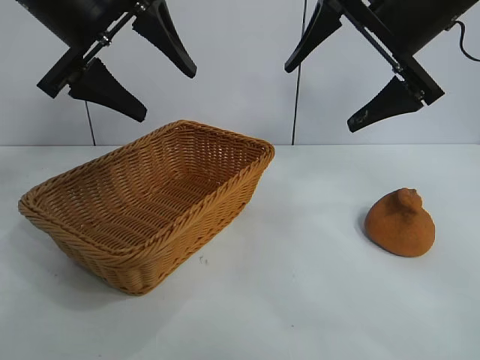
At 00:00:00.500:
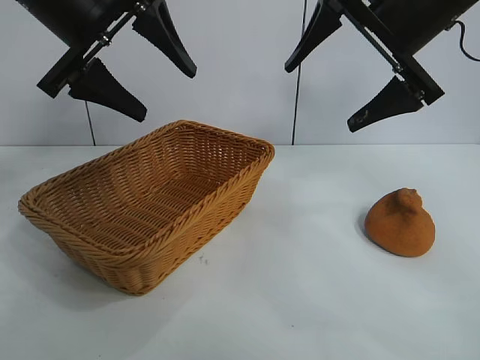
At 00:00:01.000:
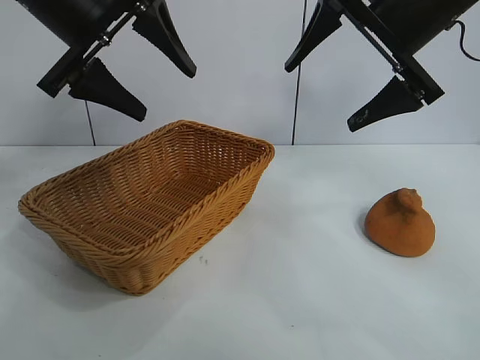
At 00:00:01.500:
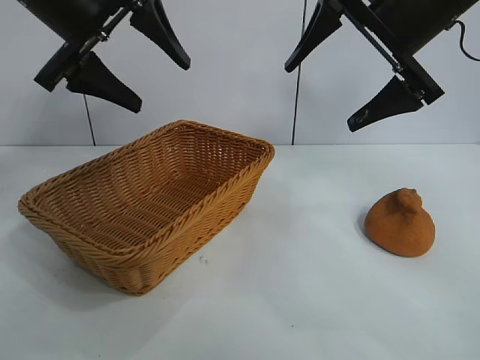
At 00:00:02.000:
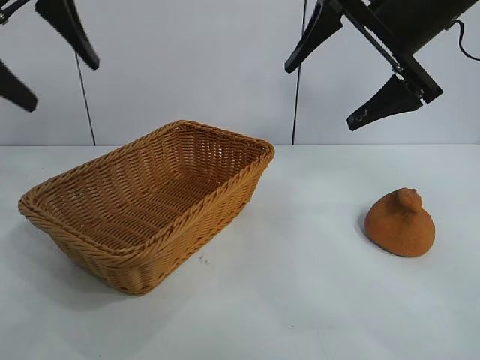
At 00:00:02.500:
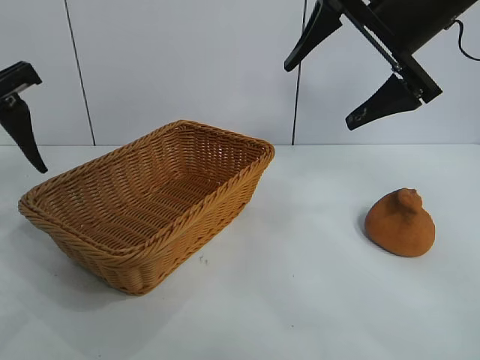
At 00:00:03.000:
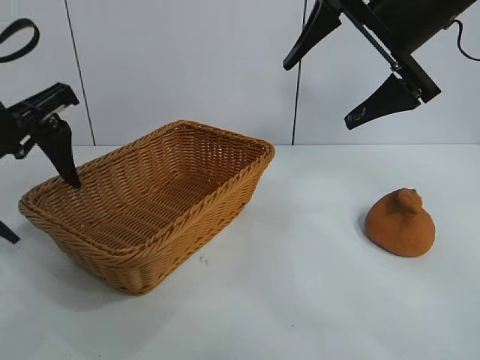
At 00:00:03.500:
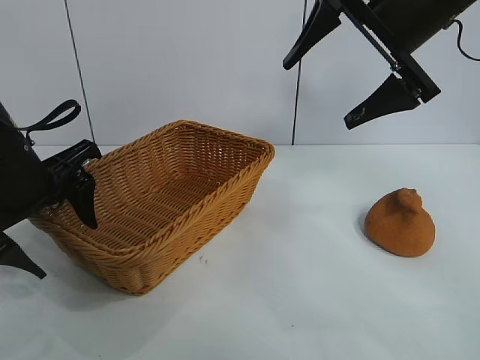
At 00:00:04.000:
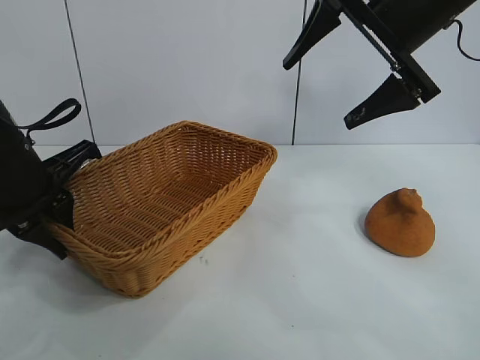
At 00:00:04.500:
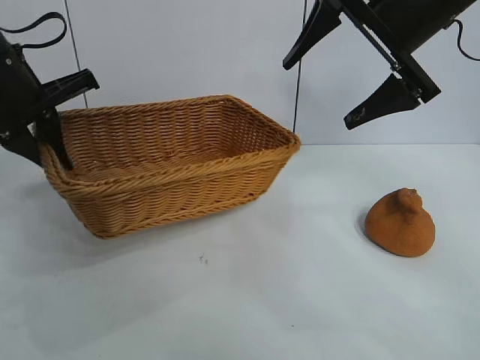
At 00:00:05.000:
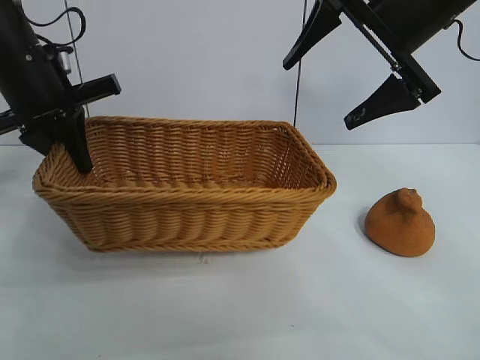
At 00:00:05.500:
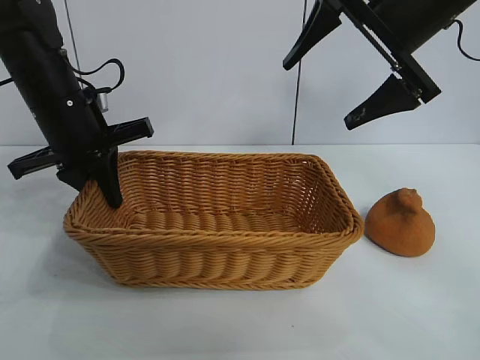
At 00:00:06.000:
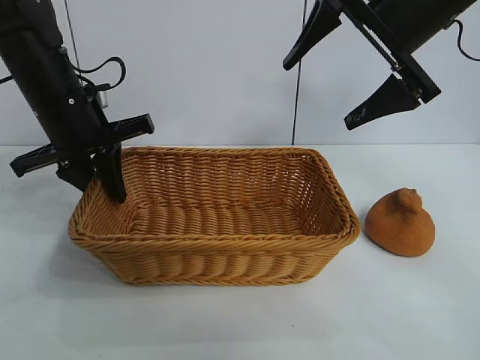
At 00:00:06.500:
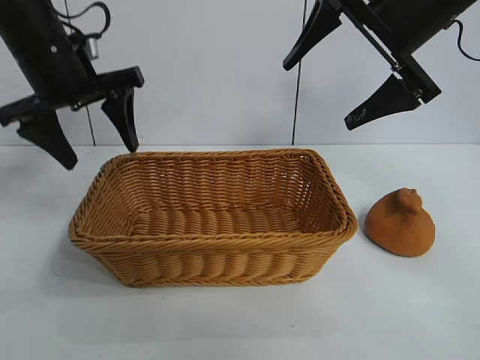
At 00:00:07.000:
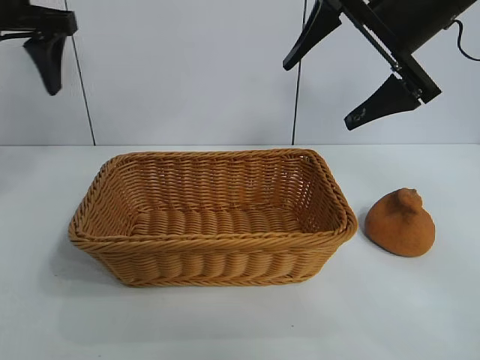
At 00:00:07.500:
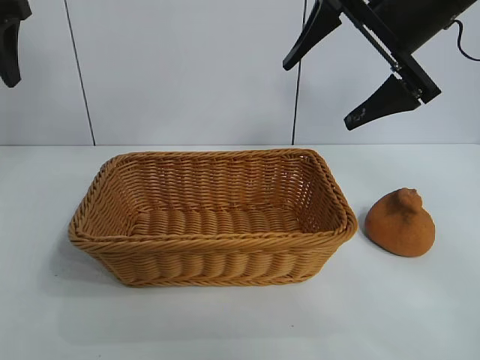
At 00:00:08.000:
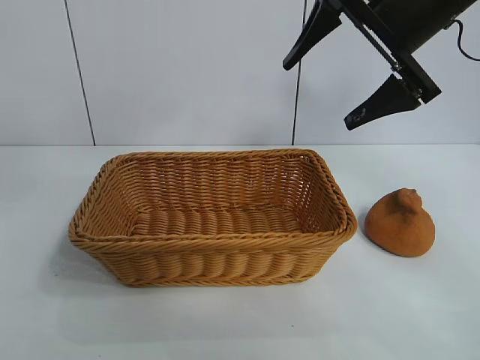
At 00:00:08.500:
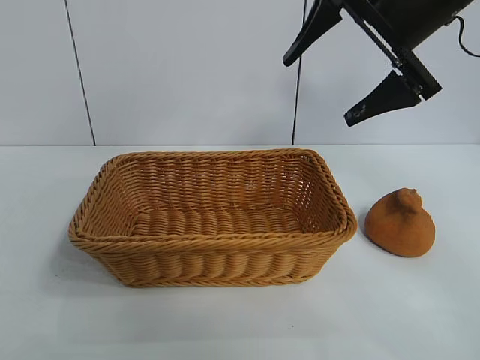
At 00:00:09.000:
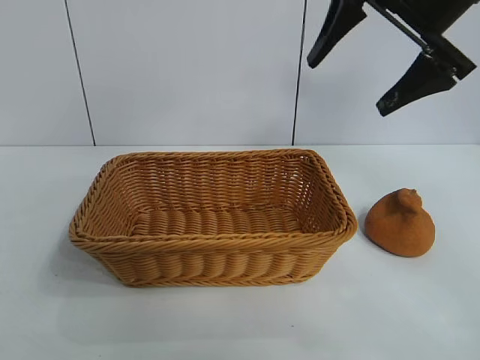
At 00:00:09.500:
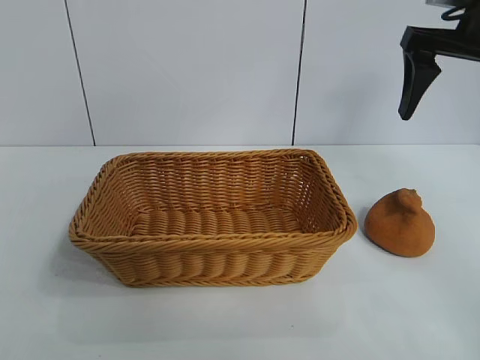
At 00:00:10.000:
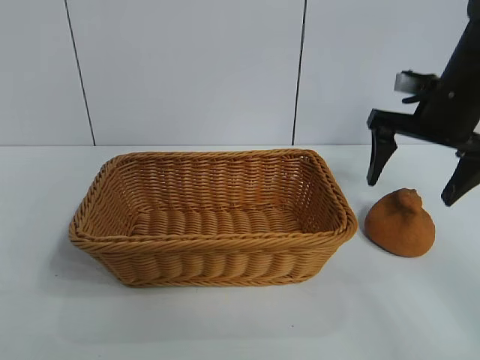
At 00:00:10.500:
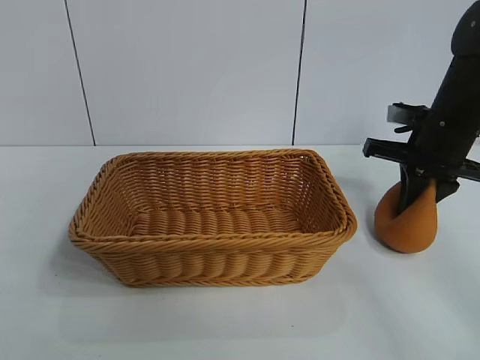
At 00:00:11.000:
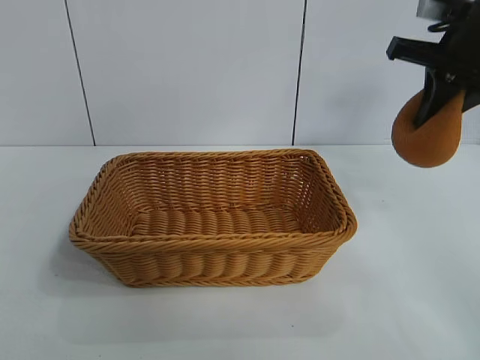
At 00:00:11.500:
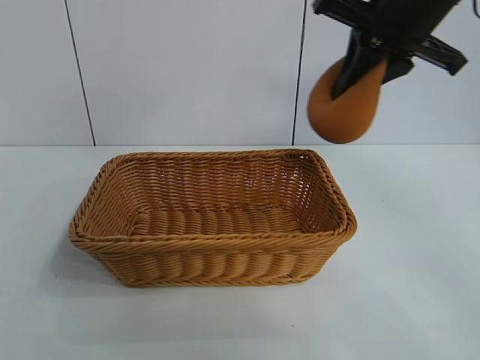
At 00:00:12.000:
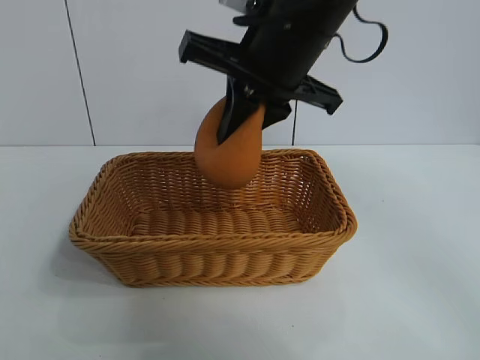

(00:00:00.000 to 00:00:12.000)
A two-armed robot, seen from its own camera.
Task of the whole recording: pick up the orange and put it into the basket.
Step, 00:00:01.000 - 00:00:03.500: Grasp the basket with left gripper.
Step, 00:00:04.000 - 00:00:06.000: Place the basket in the center of view with left gripper.
Step, 00:00:06.500 - 00:00:10.500: Grasp the orange with right gripper.
